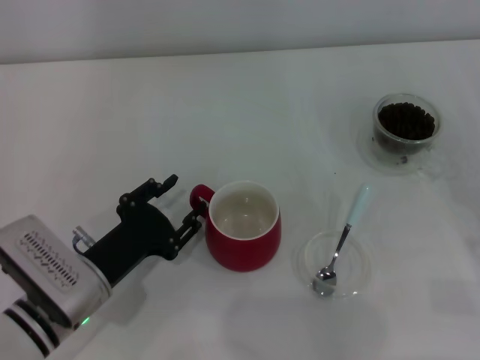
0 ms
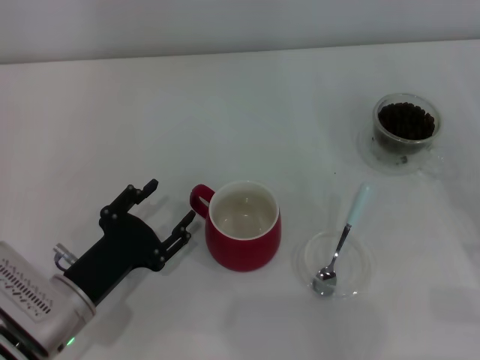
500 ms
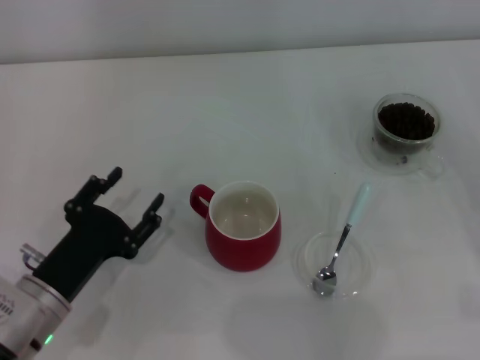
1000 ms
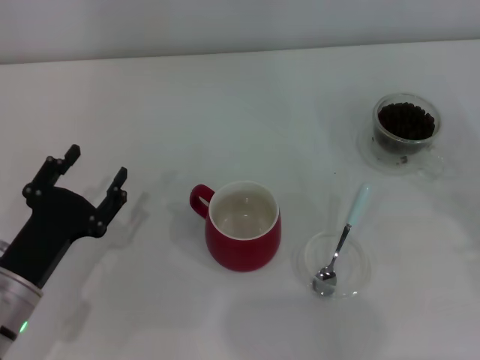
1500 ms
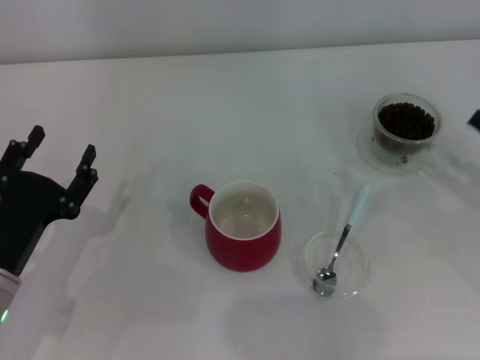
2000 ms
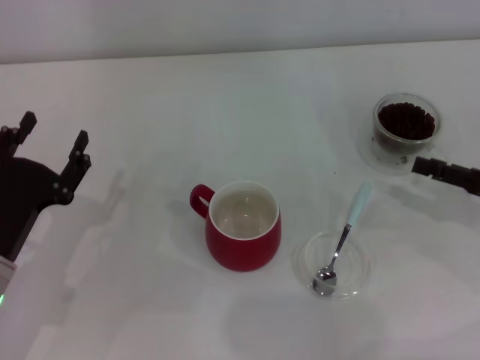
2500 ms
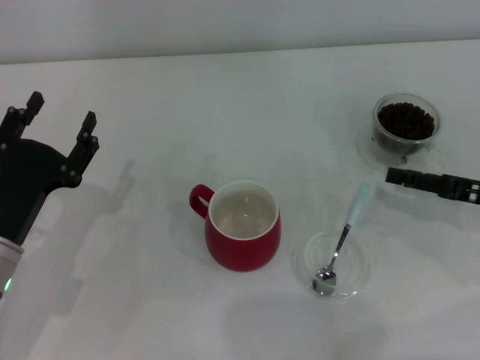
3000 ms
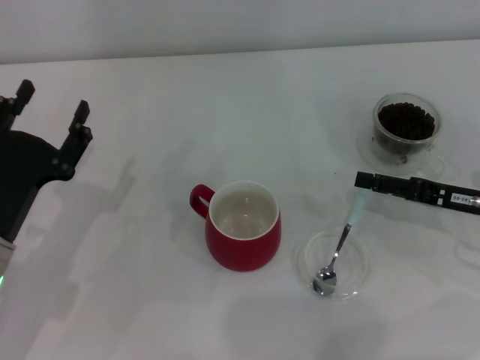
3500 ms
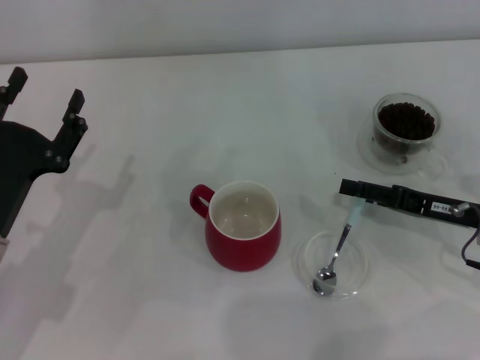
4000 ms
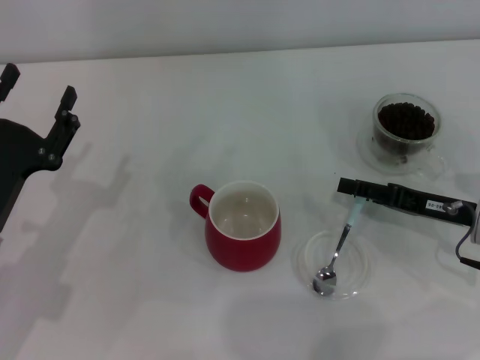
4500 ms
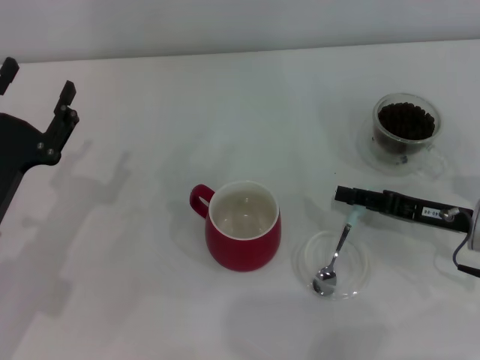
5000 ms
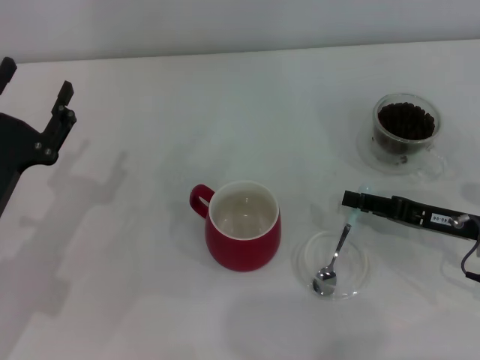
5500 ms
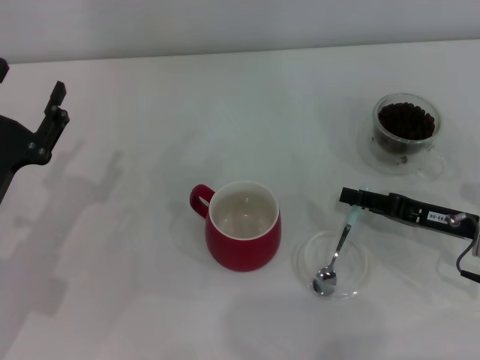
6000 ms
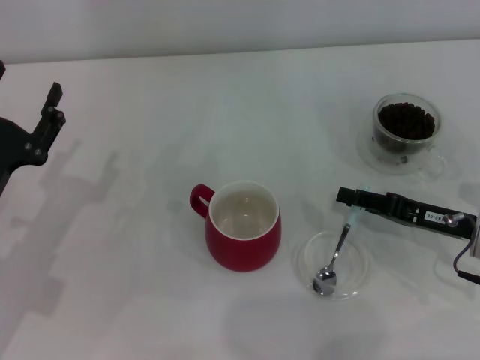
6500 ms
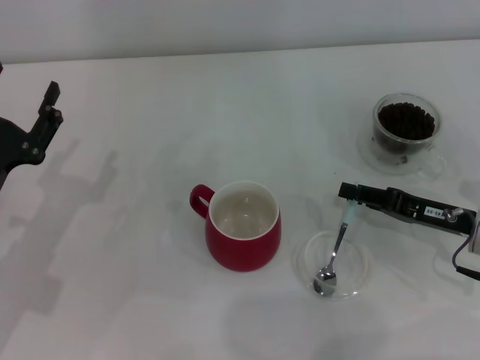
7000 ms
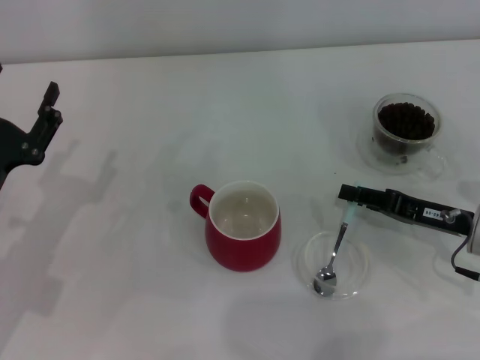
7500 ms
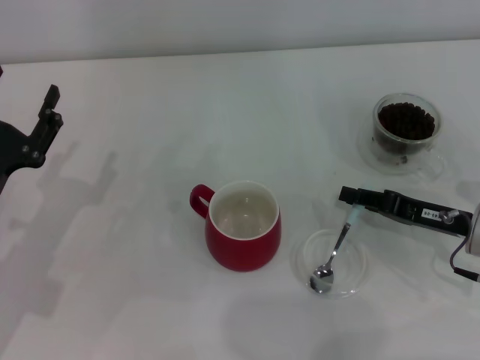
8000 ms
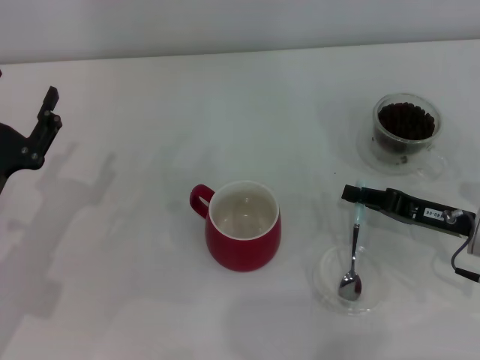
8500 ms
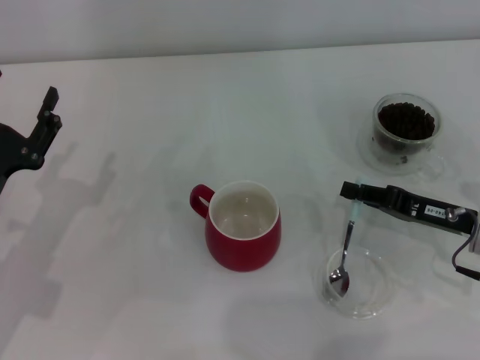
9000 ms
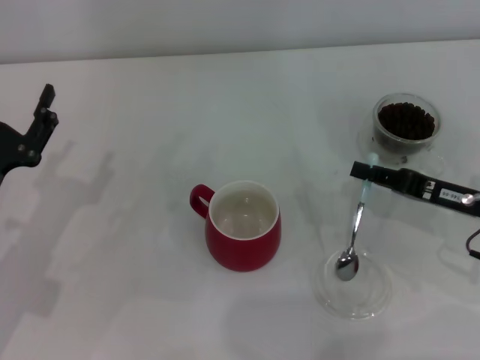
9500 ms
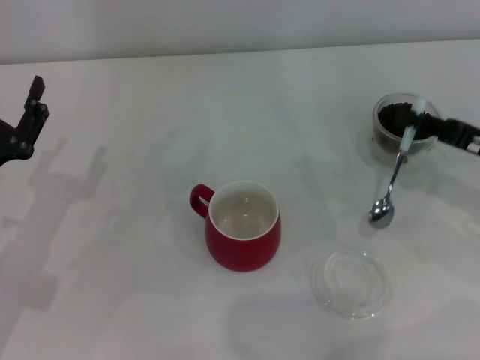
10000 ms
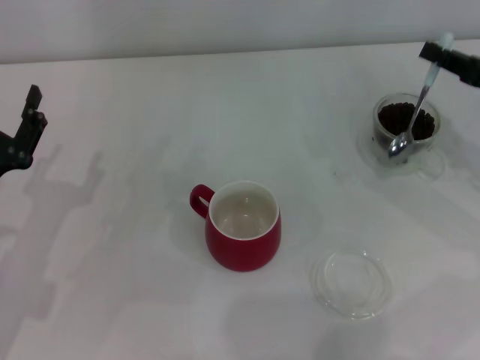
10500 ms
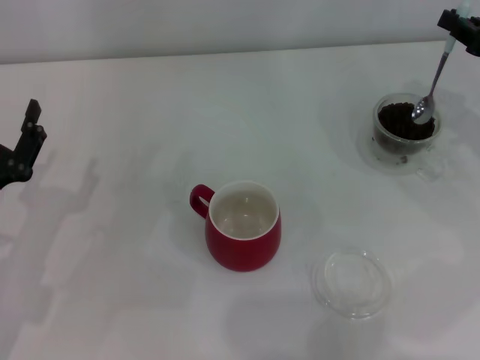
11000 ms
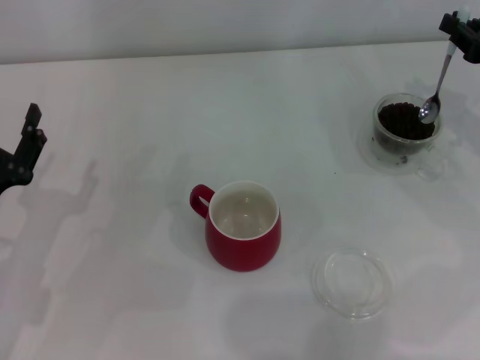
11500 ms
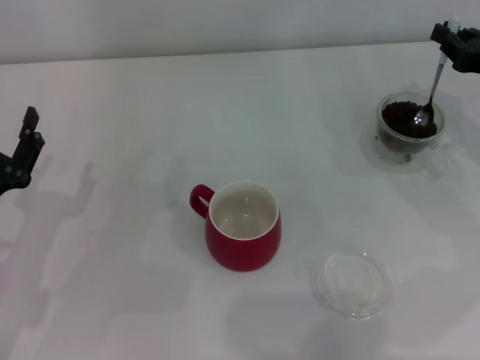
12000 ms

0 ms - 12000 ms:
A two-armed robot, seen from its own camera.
Task of the whole recording: Use a blue spoon to take out the coffee beans from the glass and pour them into the red cup.
Step, 1000 ms - 9000 ms: Pick up the spoon with the right gripper.
0 ms - 2000 ms: The left gripper shifts roughly 5 cm to the left.
2000 ms - 4000 ms: The right gripper shifts approximately 10 cm to the left.
4000 ms - 6000 ms: The right gripper closes its fingers.
6000 ms - 8000 ms: Neither gripper changes place.
8000 ms - 10000 ms: The right gripper goes roughly 5 cm upward.
10000 ms - 12000 ms: The right gripper is displaced forward by some 5 cm.

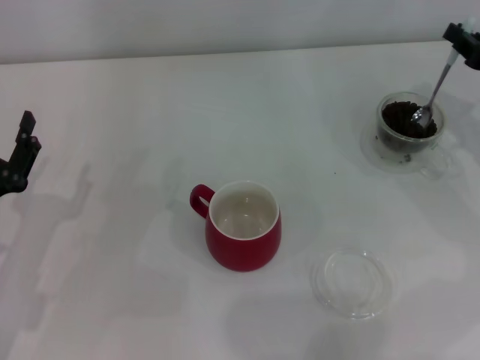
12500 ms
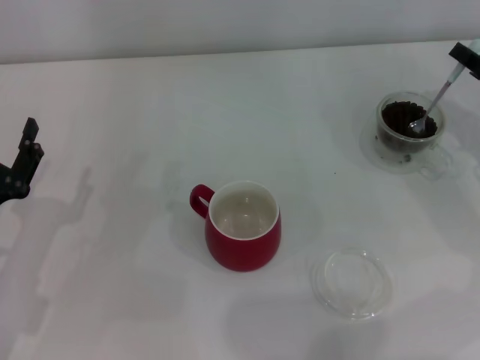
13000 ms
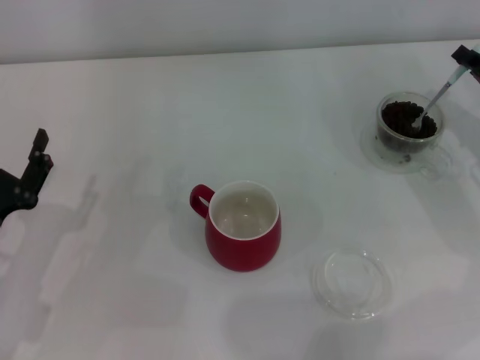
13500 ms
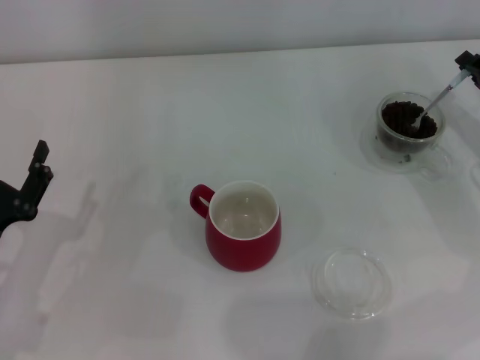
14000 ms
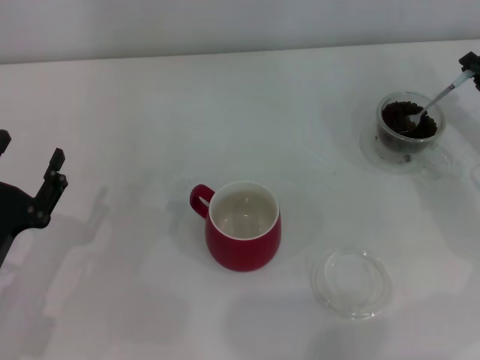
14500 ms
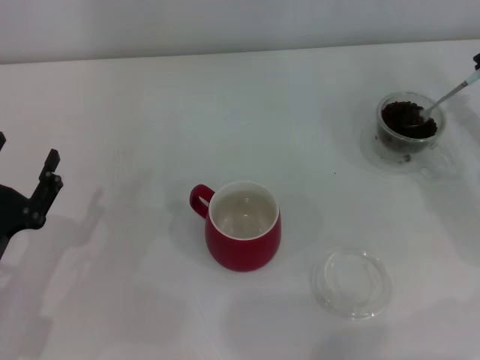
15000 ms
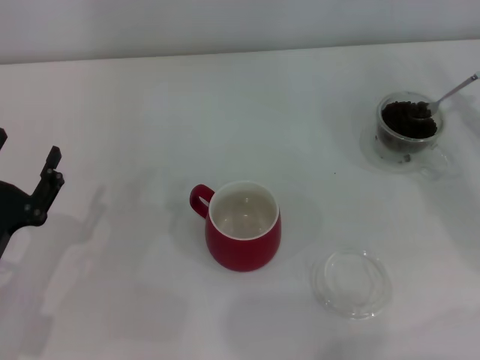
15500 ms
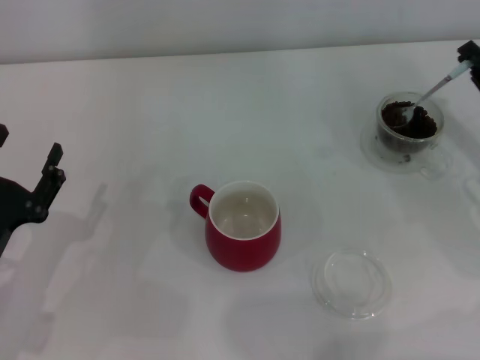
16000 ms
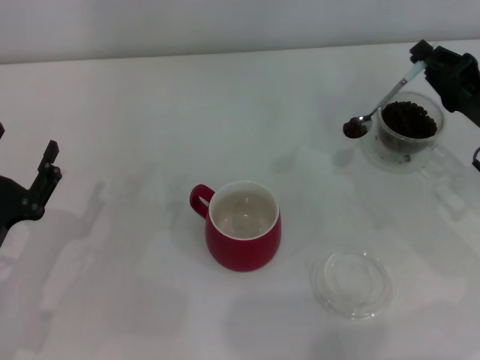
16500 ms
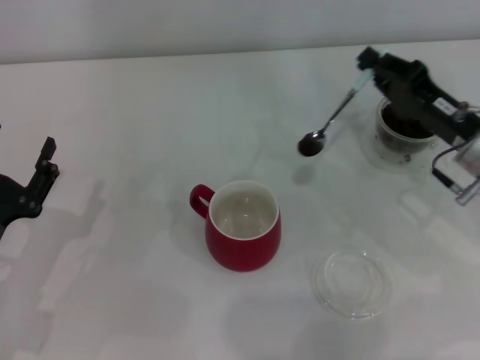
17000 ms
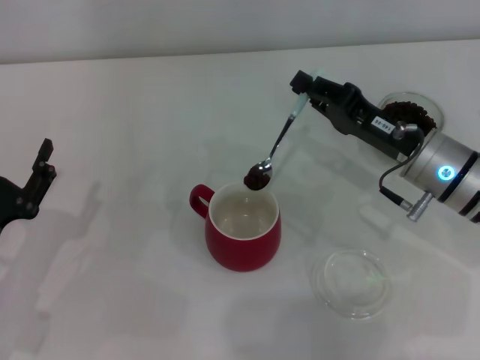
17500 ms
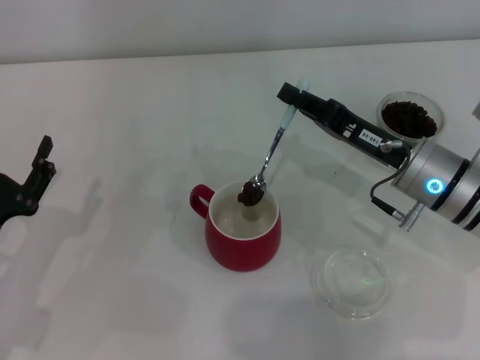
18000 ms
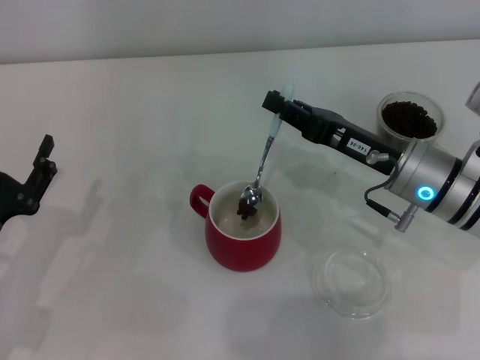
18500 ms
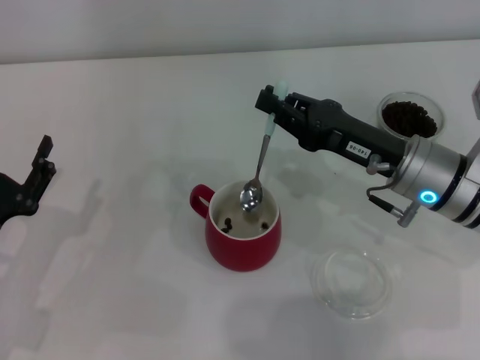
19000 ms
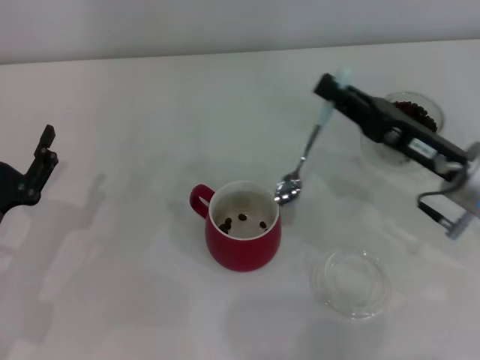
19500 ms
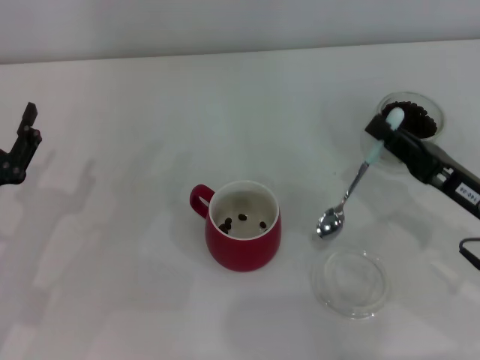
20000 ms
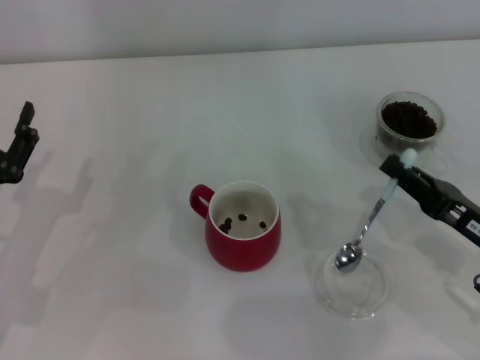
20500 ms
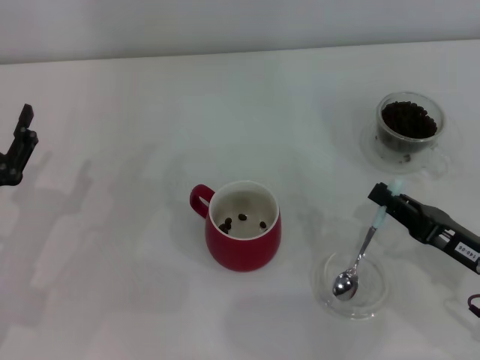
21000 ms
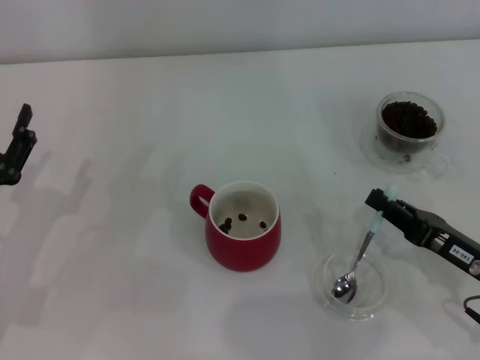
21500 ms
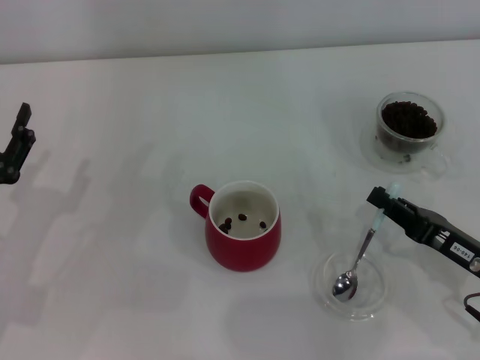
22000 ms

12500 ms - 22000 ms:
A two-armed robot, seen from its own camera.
Task of the whole recording: Use a blue spoon to take out the coffee beans from the glass and pour them into the red cup.
Step, 12500 ms - 19000 ms: Scoop a spoonful of beans into the cup with the right gripper.
14500 ms - 16500 ms: There are only small adjustments of the grippers.
16500 ms - 18000 ms: The right gripper travels to the left by approximately 10 cm.
18000 ms - 20000 ms: The right gripper shifts roughly 10 cm backward and to the right.
20000 ms - 22000 ms: The right gripper shifts by approximately 5 cm.

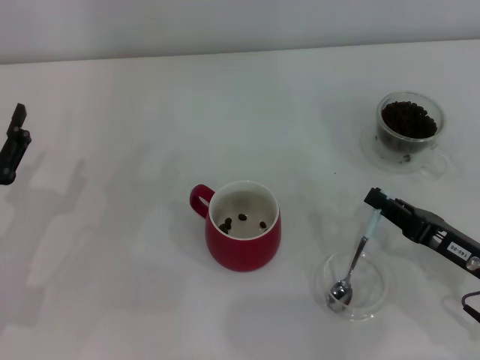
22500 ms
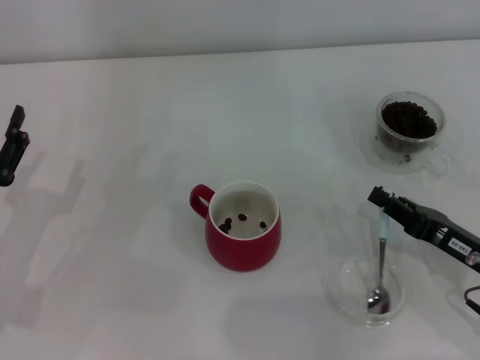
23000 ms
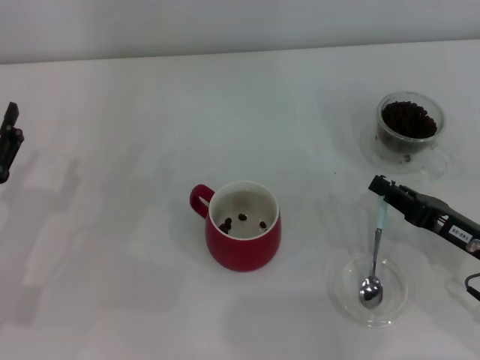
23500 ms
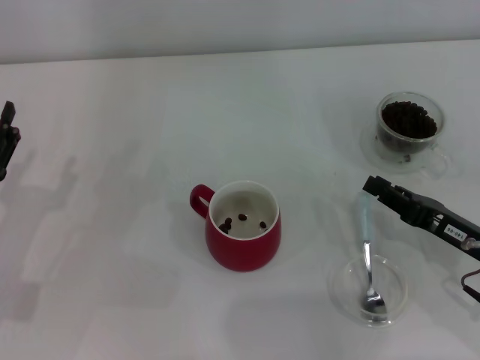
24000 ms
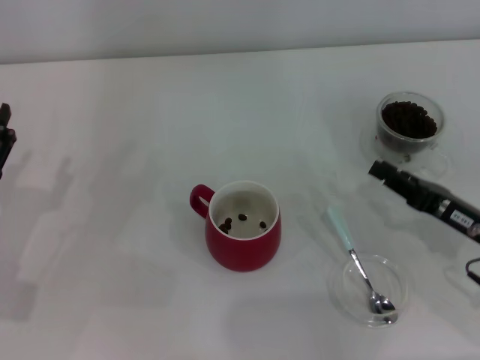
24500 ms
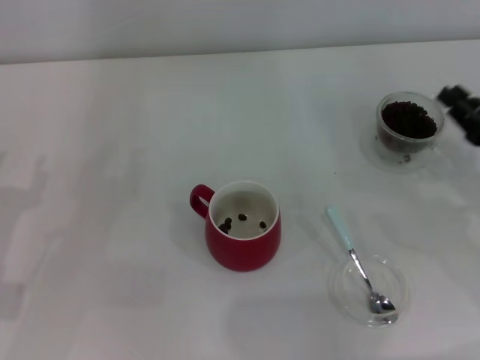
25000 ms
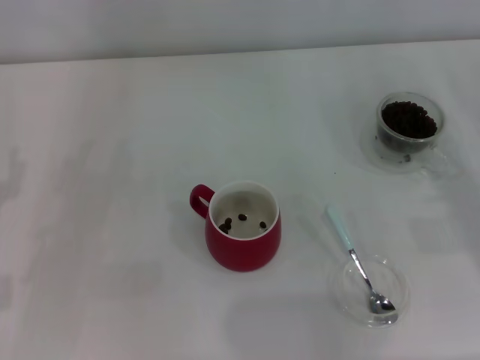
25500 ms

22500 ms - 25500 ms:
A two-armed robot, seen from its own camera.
Task of the whole recording: Use a blue spoon to take out the coffee beans from the glass and pour them into the red cup.
22500 ms - 24000 ms: The grippers move only a little.
24000 ms - 25500 ms: The right gripper moves to the right, approximately 10 cm.
